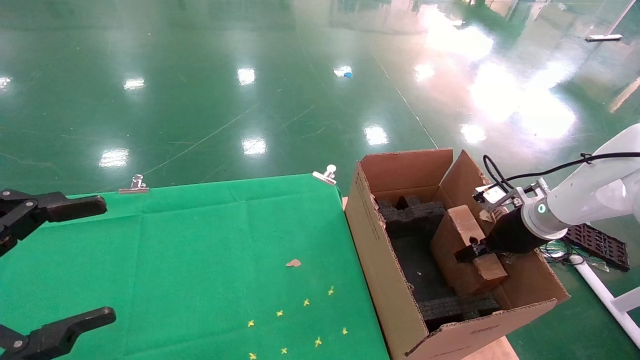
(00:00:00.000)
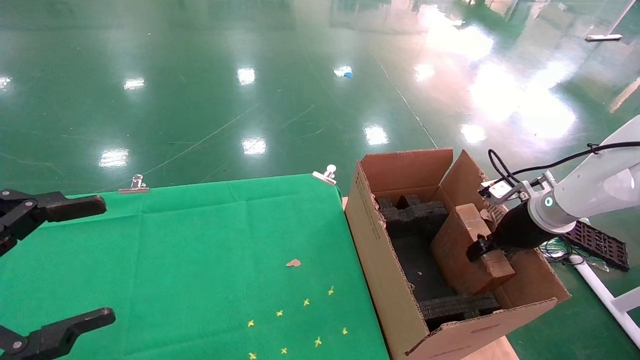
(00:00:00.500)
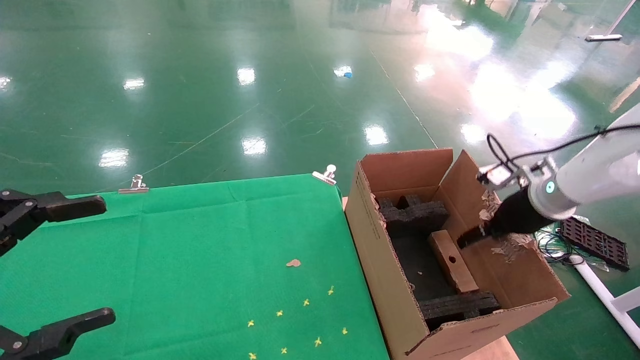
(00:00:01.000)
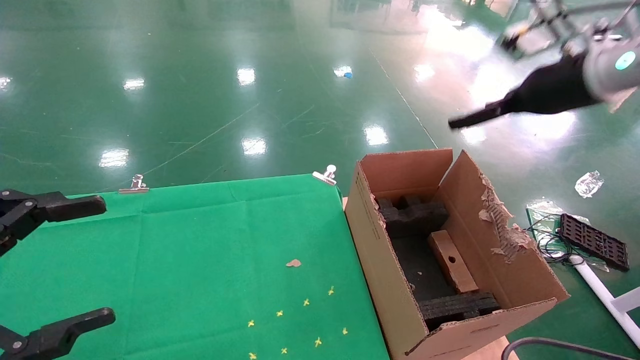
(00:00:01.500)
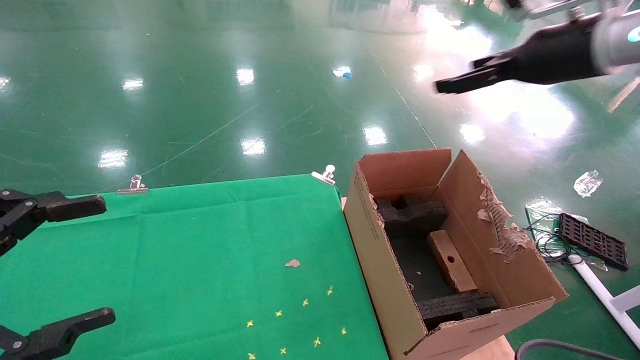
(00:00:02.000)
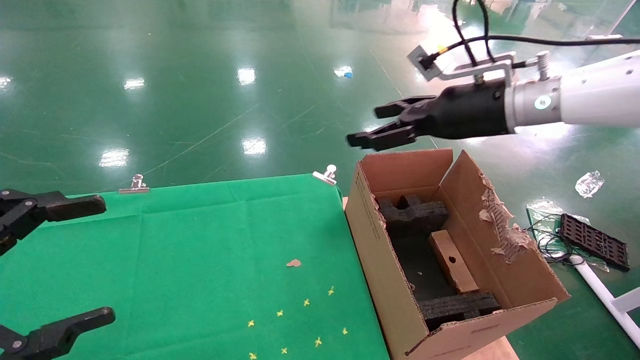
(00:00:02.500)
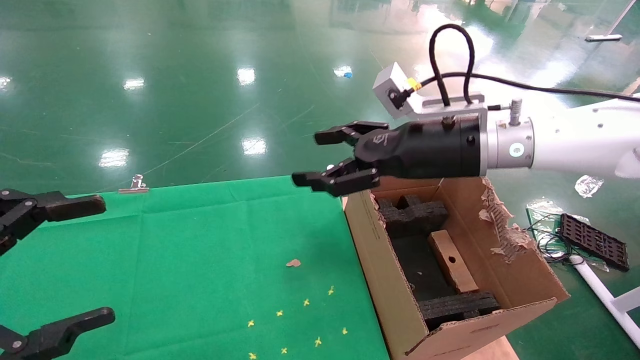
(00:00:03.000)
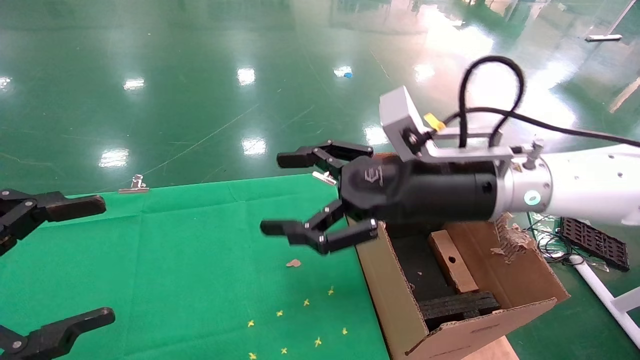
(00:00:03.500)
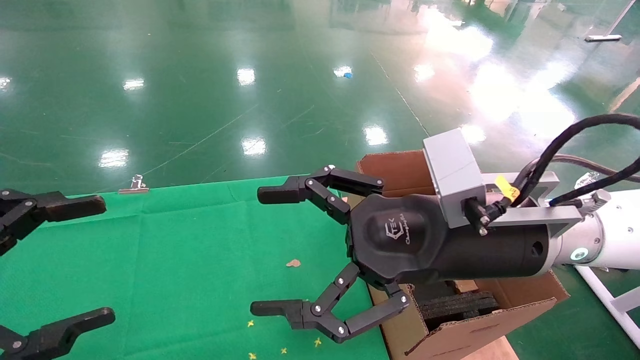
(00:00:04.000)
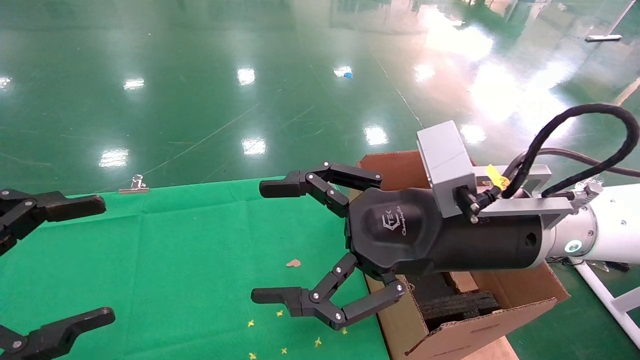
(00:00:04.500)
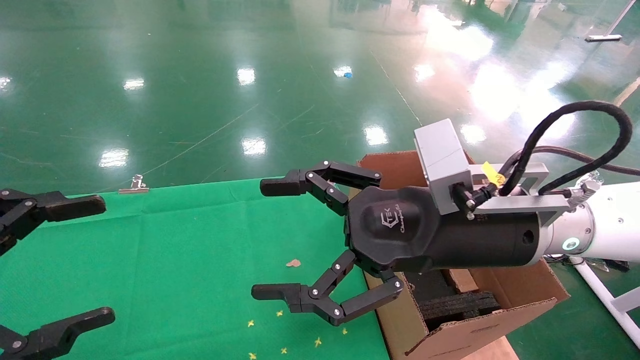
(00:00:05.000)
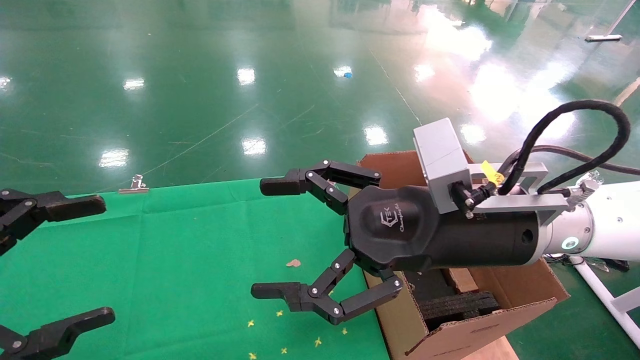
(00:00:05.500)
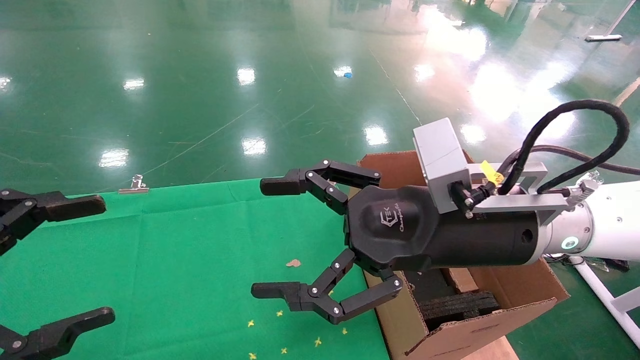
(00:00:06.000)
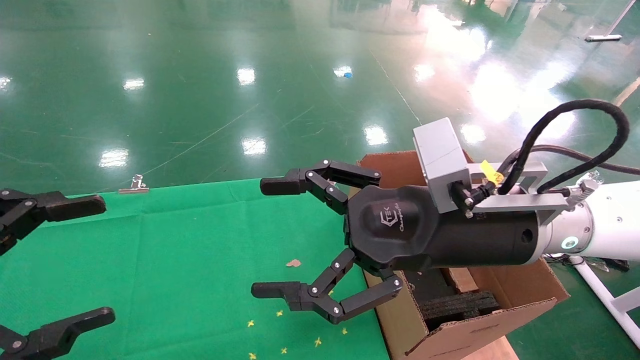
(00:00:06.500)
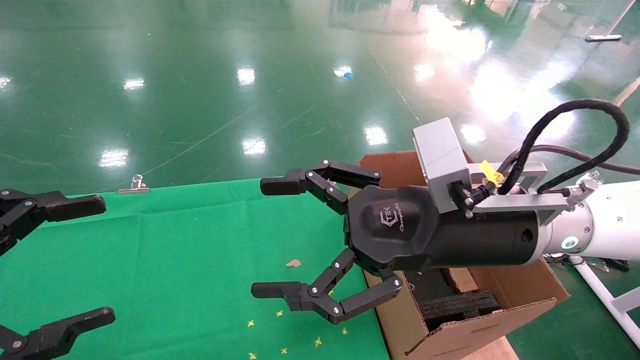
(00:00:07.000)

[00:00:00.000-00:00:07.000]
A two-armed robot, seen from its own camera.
Task of the whole recording: using a robotic arm to pick up a cardboard box and palace it the carton.
00:00:00.000 to 00:00:02.000: The right gripper travels upward by about 25 cm, and opens.
00:00:02.000 to 00:00:03.500: The right gripper travels to the left, downward and backward by roughly 25 cm.
00:00:03.500 to 00:00:05.000: The right gripper shifts by some 5 cm.
00:00:05.000 to 00:00:07.000: The two grippers keep their place.
